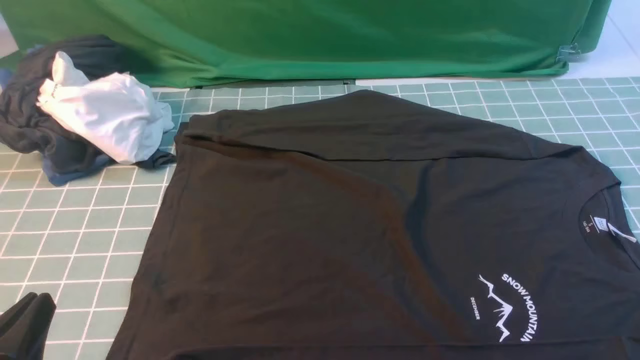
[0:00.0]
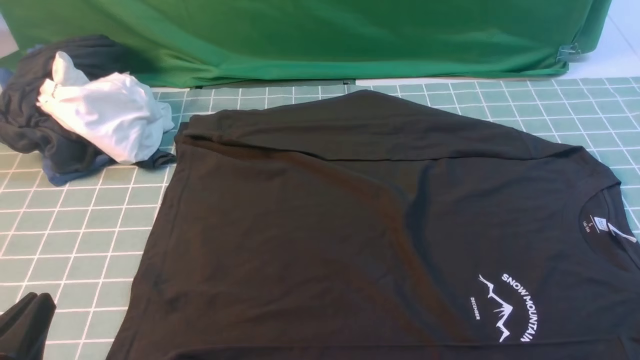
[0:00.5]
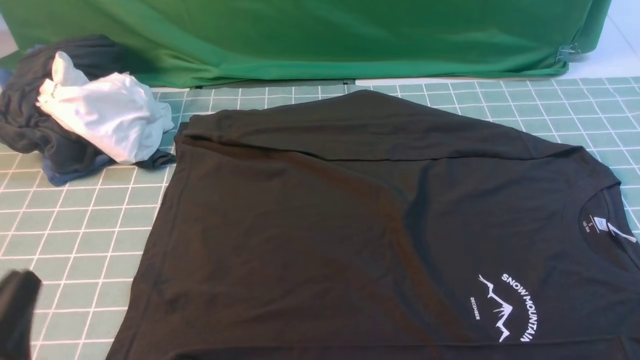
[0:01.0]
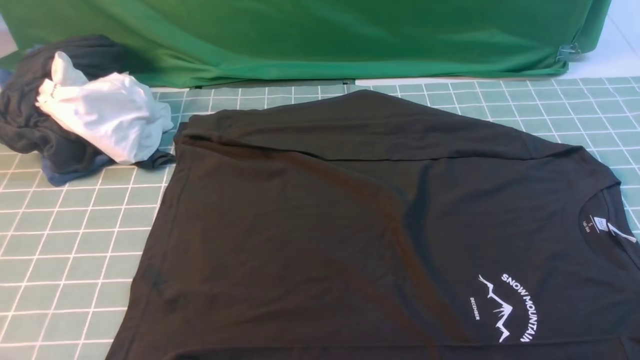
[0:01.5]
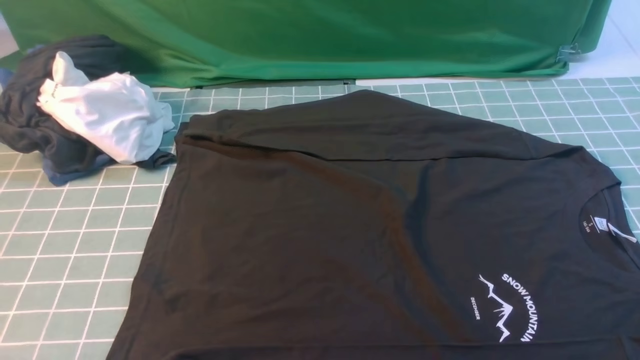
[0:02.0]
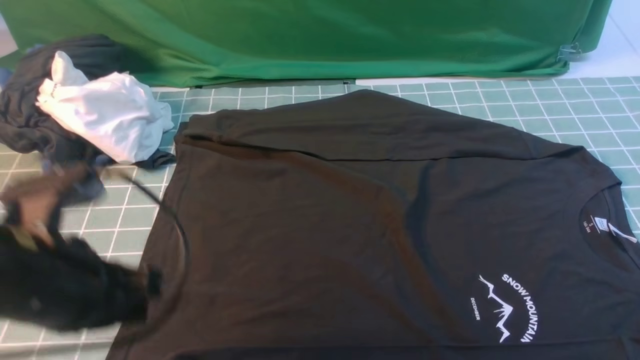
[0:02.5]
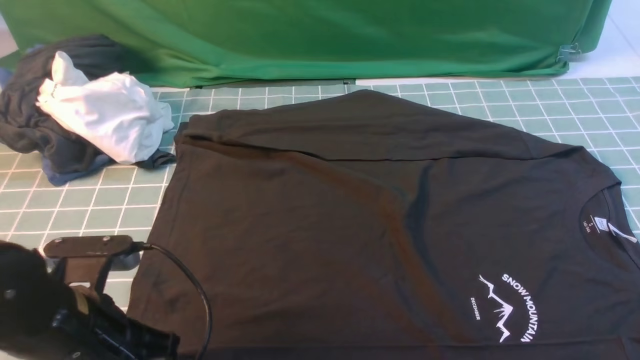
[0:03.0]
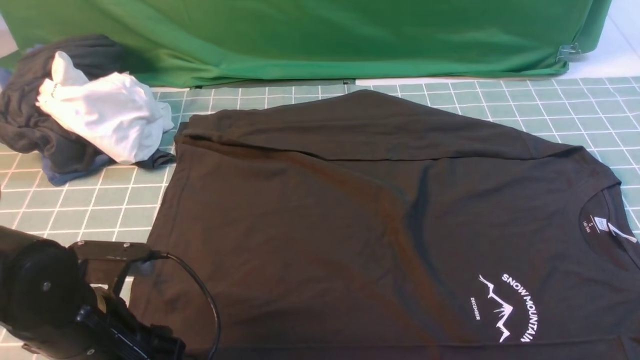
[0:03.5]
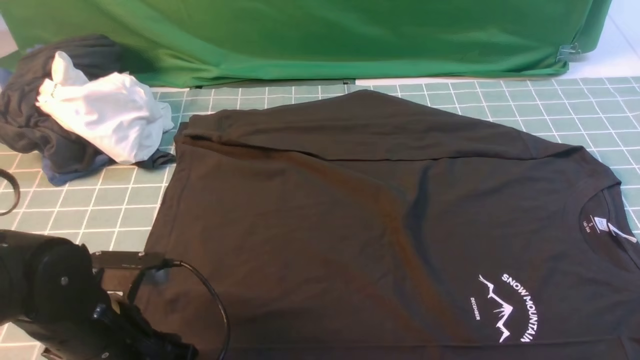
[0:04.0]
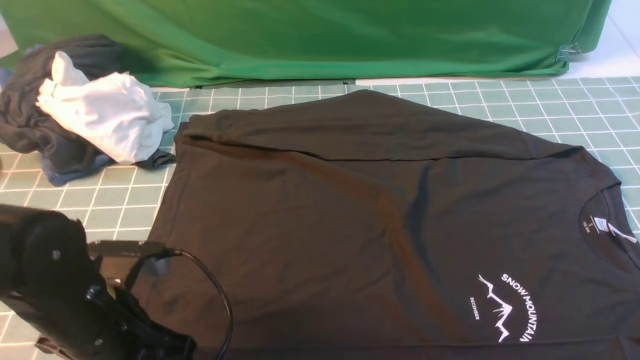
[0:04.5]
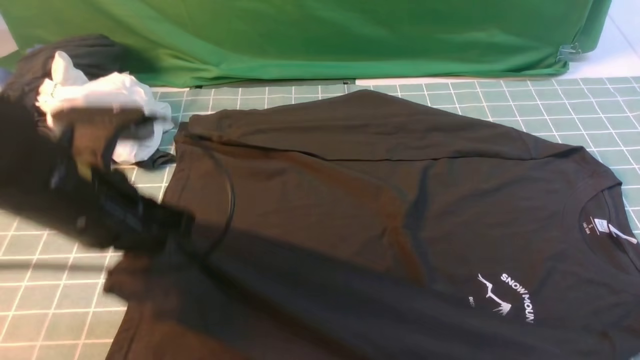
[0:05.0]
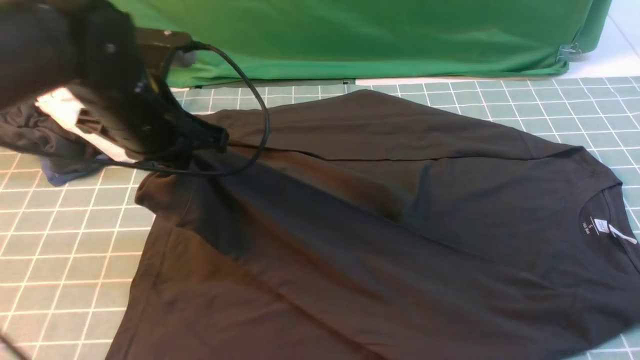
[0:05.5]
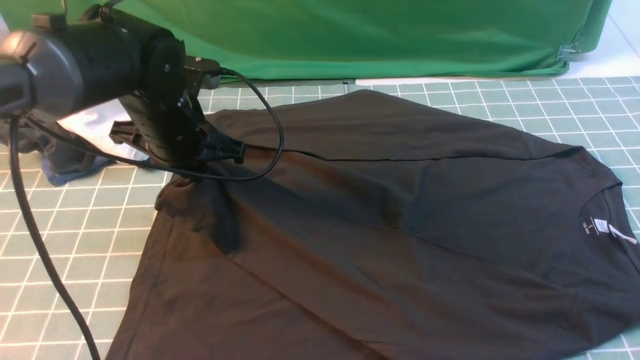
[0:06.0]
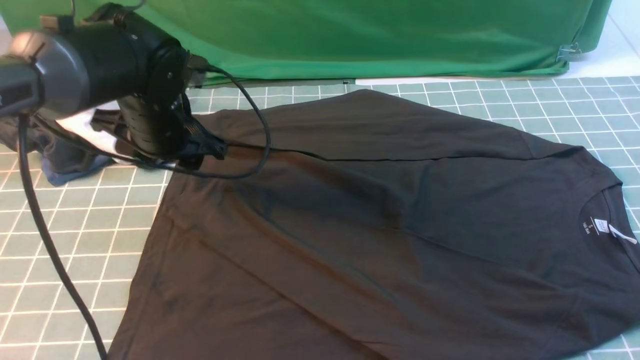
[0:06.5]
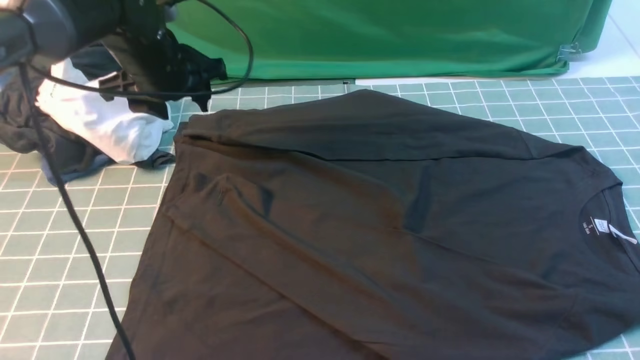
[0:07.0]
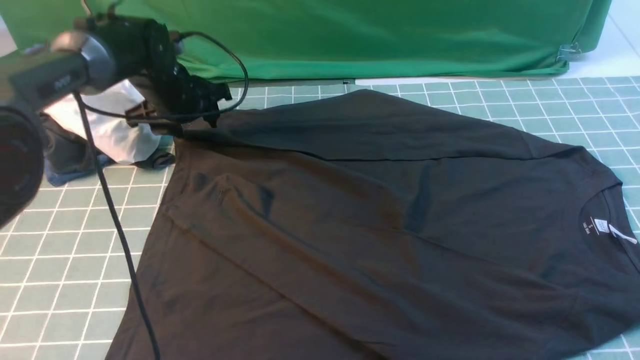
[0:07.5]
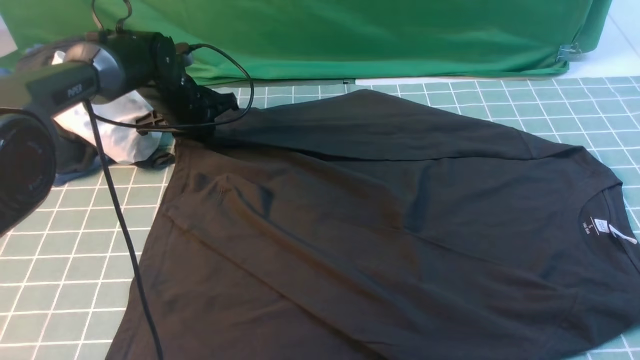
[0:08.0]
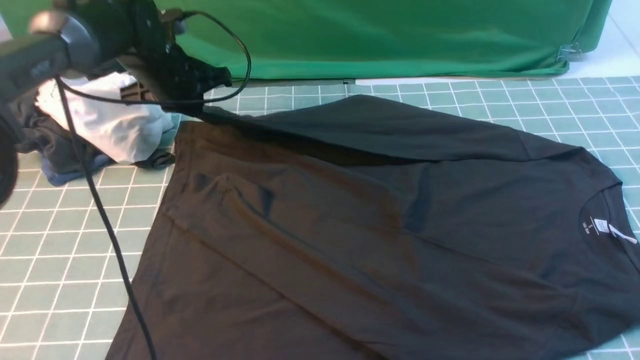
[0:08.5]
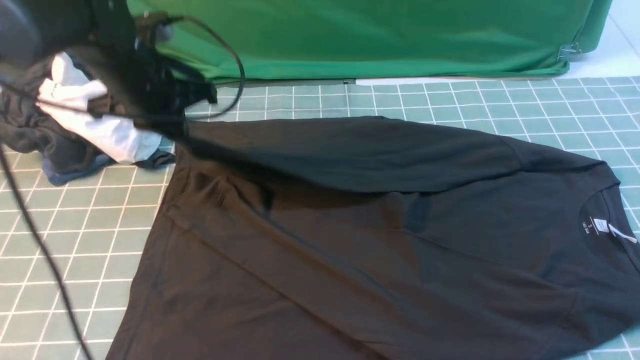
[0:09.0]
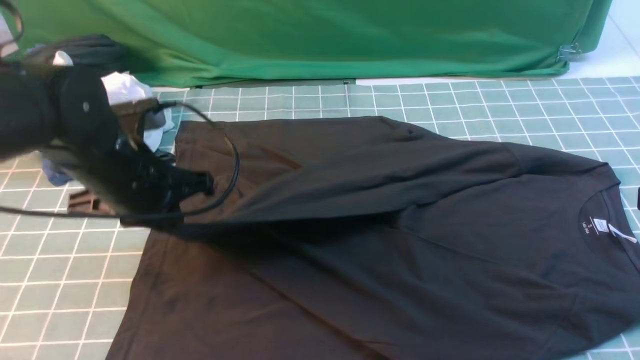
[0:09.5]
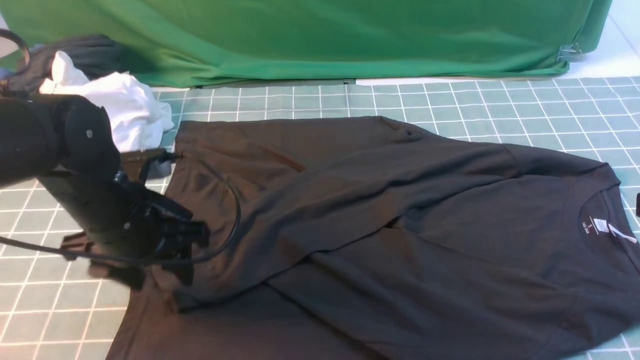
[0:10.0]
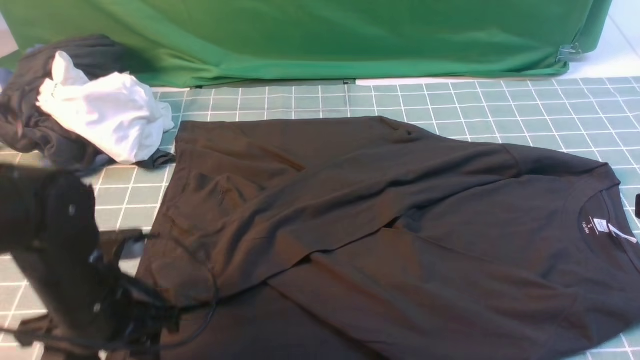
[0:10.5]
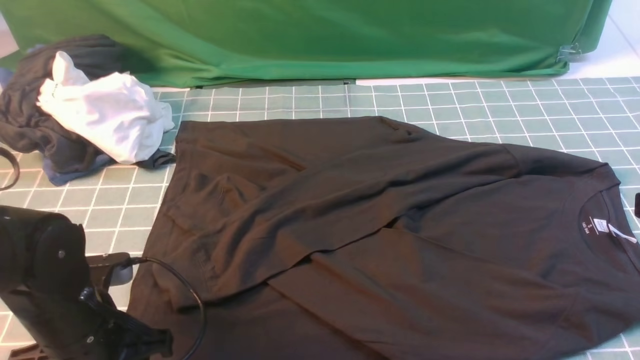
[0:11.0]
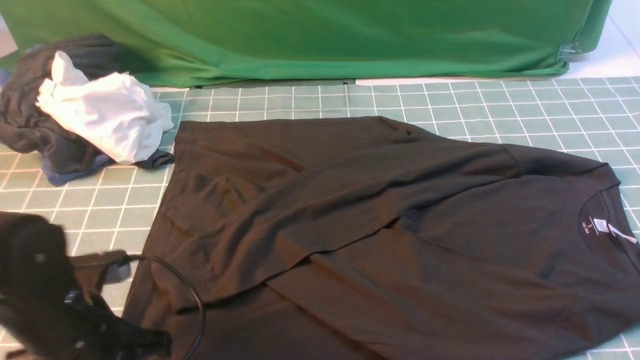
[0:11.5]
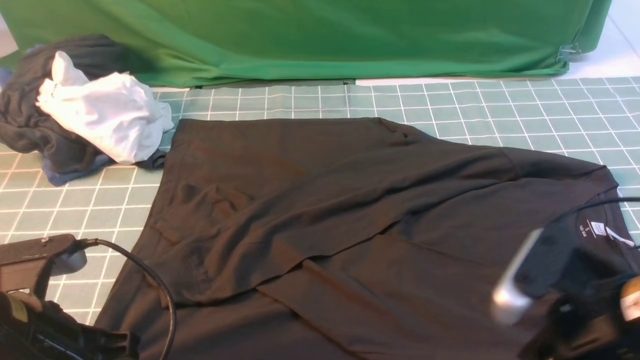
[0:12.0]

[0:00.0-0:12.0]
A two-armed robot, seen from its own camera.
Step, 0:00.0 to 0:04.0: use the left arm to clamp the cuff closest to it.
Step, 0:04.5 to 0:06.5: use the left arm to drag and place the cuff at the centered position on the left edge of the fabric.
Step, 0:07.0 to 0:08.0: use the left arm to clamp the cuff farthest from it.
Step, 0:08.5 to 0:10.0: use the left arm to drag and drop the cuff onto the cuff closest to the left arm.
0:00.0 to 0:02.0: The left gripper moves upward, some 15 cm.
0:02.0 to 0:04.0: The left gripper is displaced downward and forward by approximately 20 cm, and opens up.
0:04.0 to 0:06.0: The left gripper moves forward, roughly 20 cm, and closes up.
0:06.0 to 0:08.0: The left gripper is displaced forward and downward by about 15 cm, and opens and closes again.
0:08.0 to 0:10.0: The left gripper moves backward, roughly 25 cm, and opens its fingers.
0:10.0 to 0:12.0: The left gripper is displaced backward by about 15 cm, and closes; the right gripper goes approximately 10 cm to the left and downward, and opens.

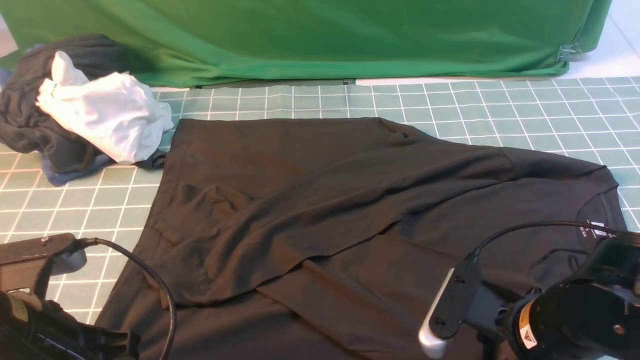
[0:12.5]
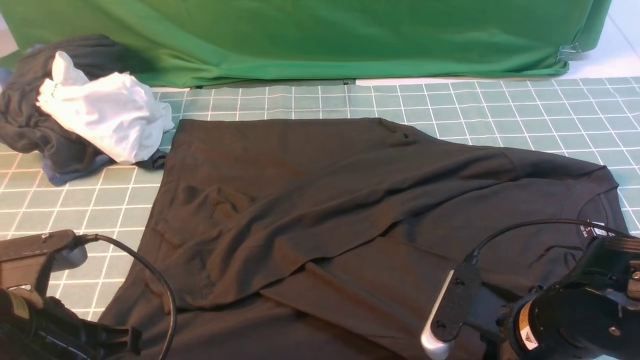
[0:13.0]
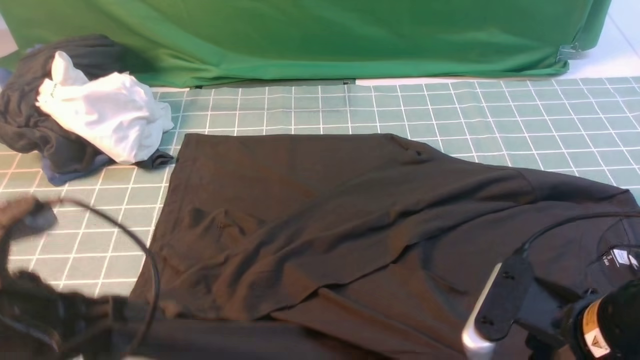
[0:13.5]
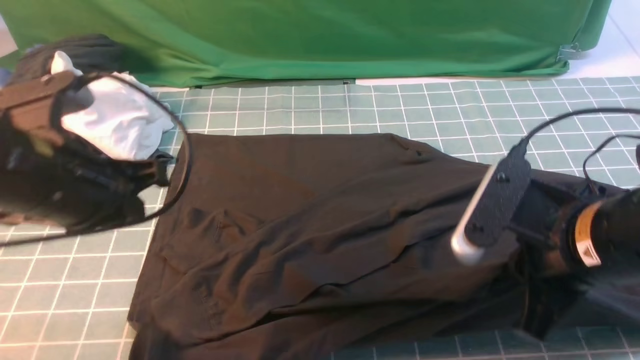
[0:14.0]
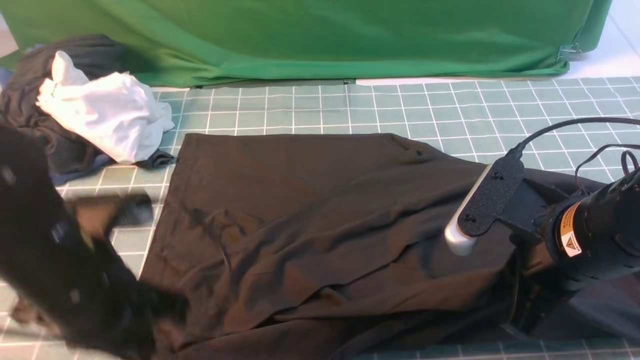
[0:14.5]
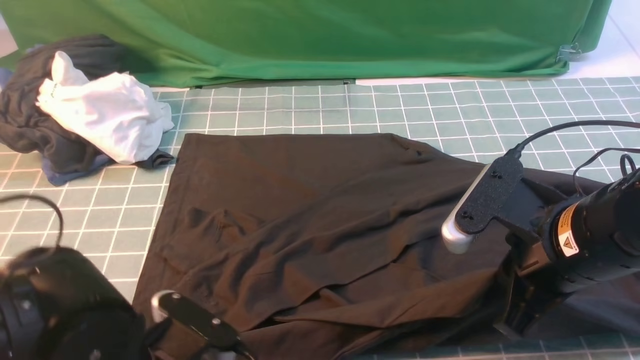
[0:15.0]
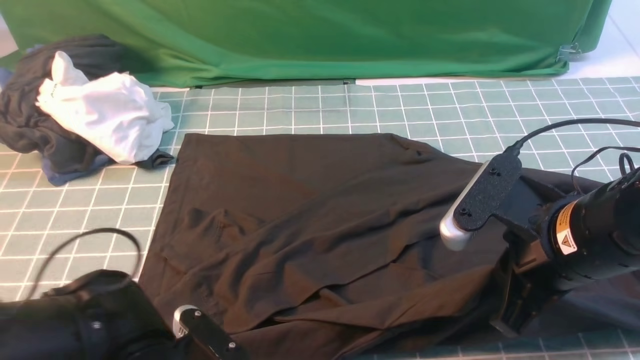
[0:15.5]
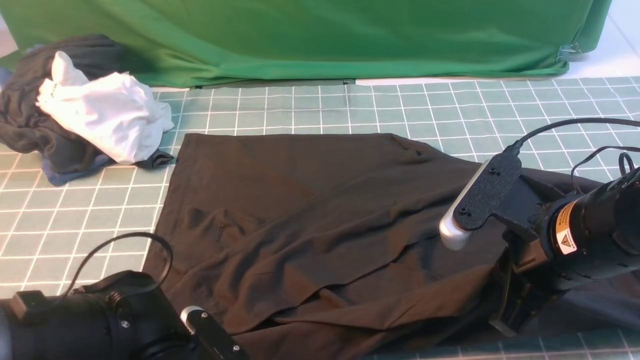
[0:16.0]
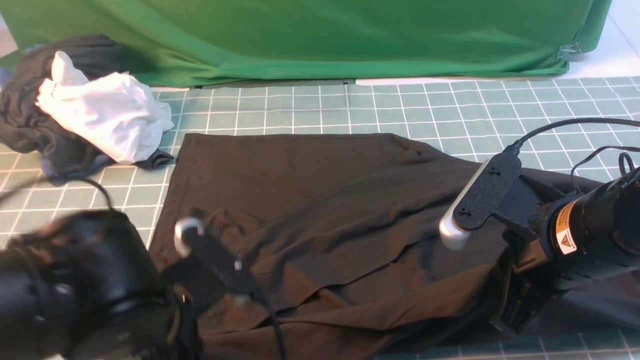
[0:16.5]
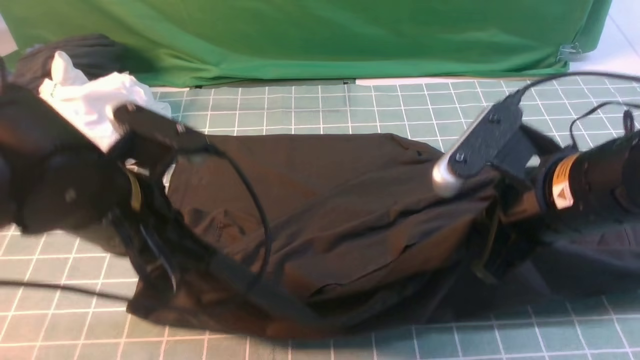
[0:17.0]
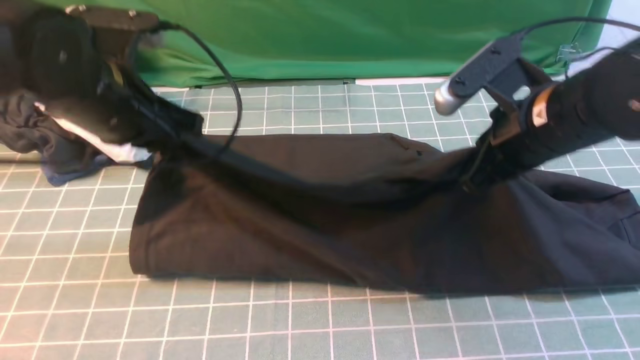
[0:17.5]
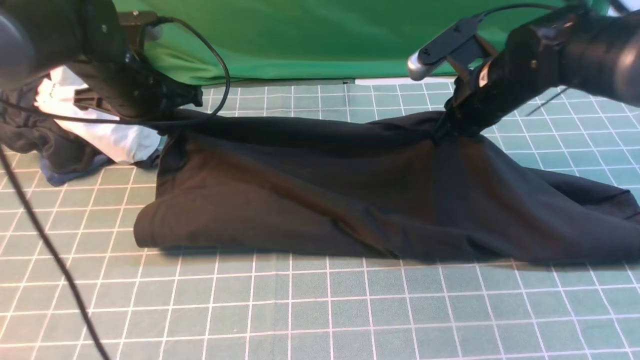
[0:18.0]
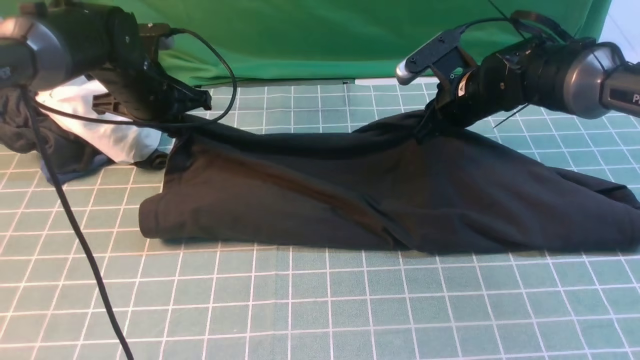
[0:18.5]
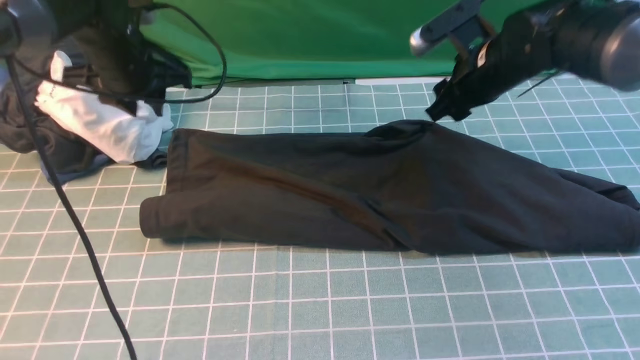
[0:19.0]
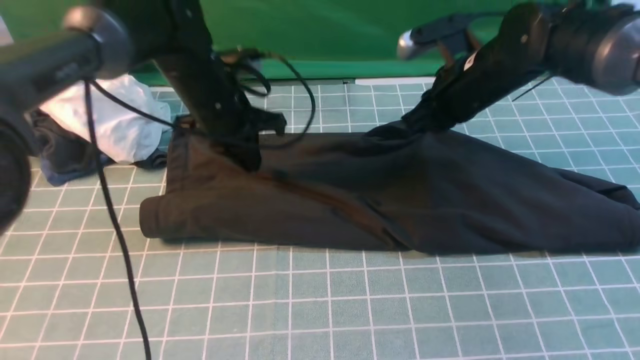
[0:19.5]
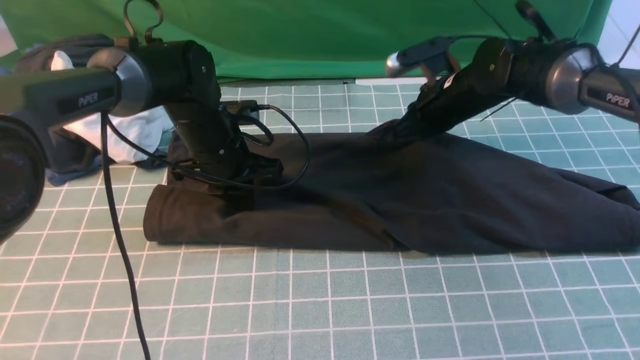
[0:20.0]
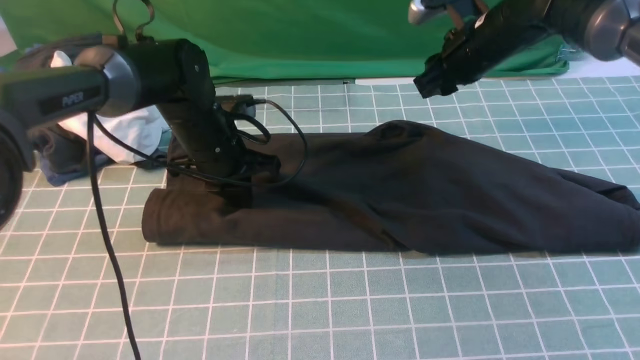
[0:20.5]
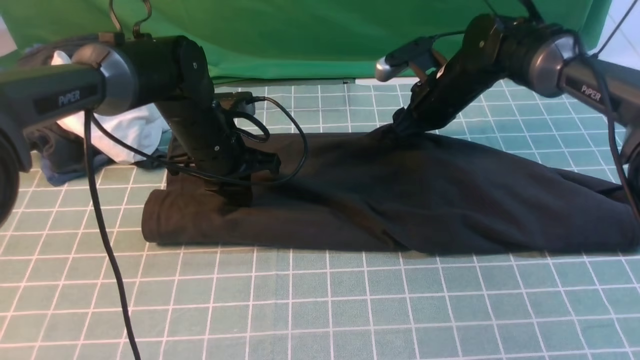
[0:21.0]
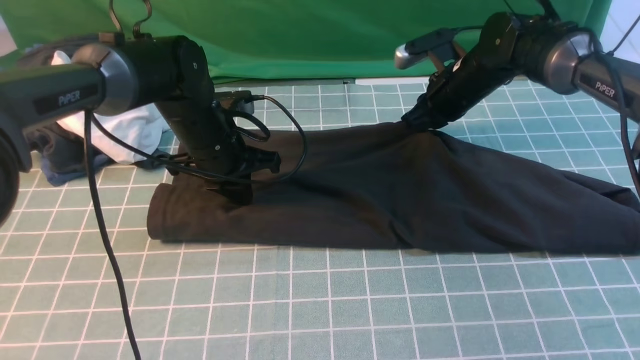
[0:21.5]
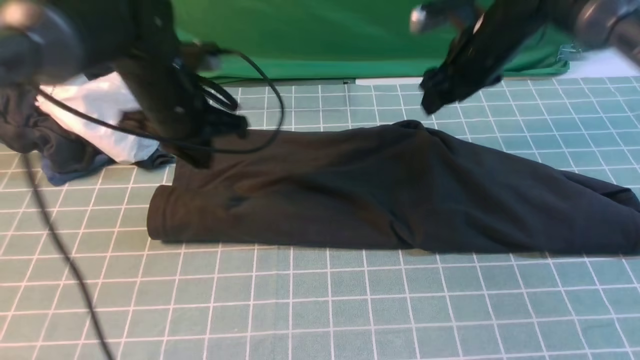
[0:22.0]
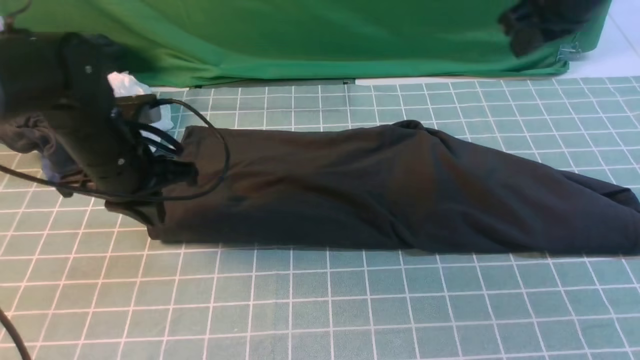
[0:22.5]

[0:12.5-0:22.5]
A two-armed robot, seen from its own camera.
Step, 0:13.5 to 0:18.5: use both arms to drag the lower edge of the fabric forward and fold it over the upper edge.
0:12.5 to 0:14.5: The right gripper heads upward, covering some 10 cm, and closes its fingers.
0:14.5 to 0:16.5: The left gripper reaches about 10 cm downward, then returns, and opens, then closes again.
0:16.5 to 0:18.5: Both grippers travel together forward, roughly 25 cm. The right gripper opens its fingers.
0:18.5 to 0:20.5: The left gripper is displaced to the right by about 10 cm; the right gripper swings up and down, some 5 cm each way, with 2 reversals, and closes and opens again.
0:20.5 to 0:22.5: The left gripper heads backward, to the left and upward, covering some 10 cm; the right gripper heads upward, backward and to the right, covering some 15 cm, and closes up.
